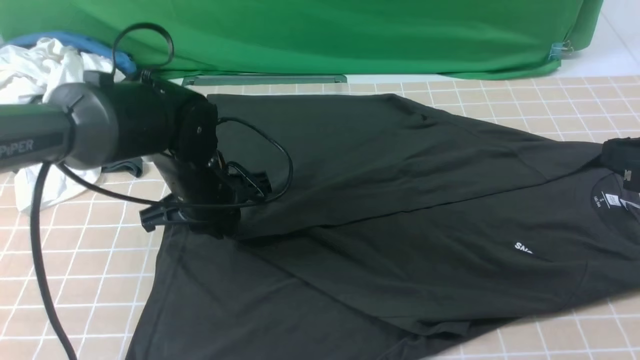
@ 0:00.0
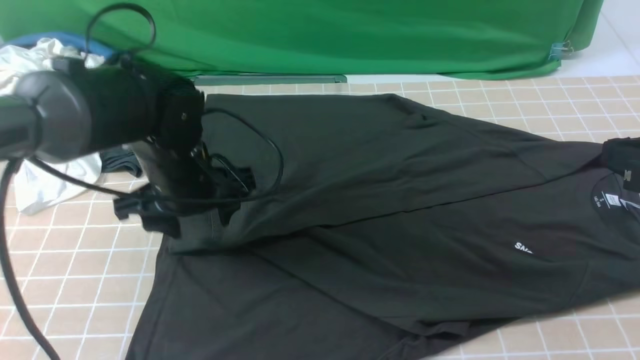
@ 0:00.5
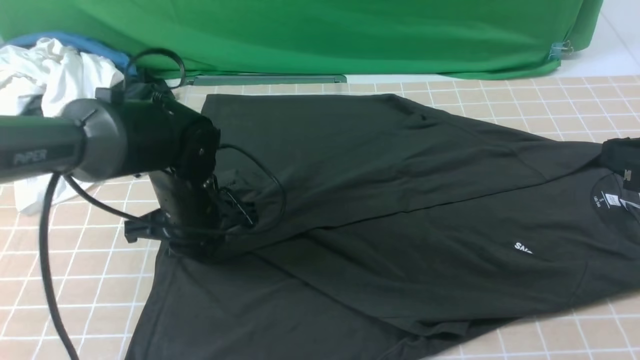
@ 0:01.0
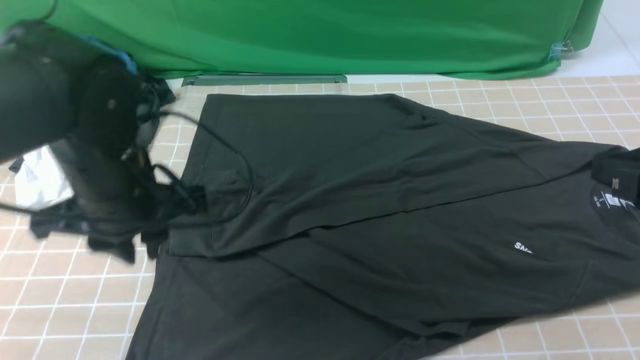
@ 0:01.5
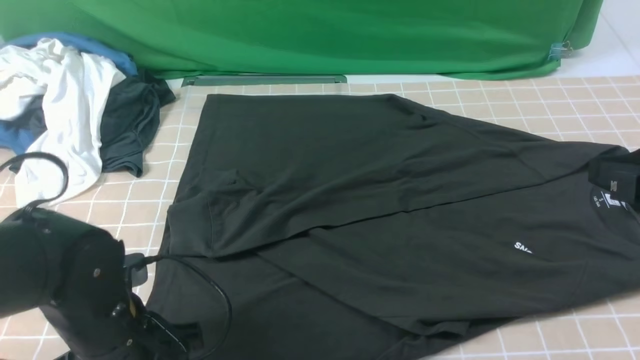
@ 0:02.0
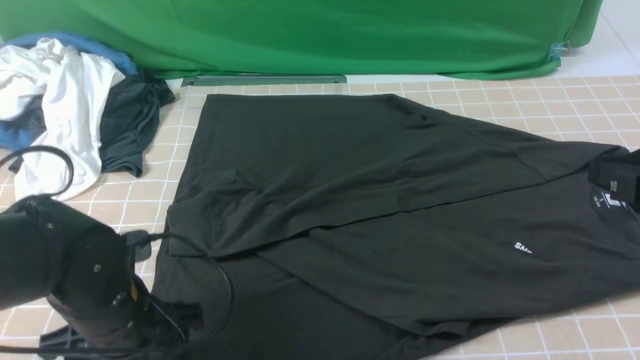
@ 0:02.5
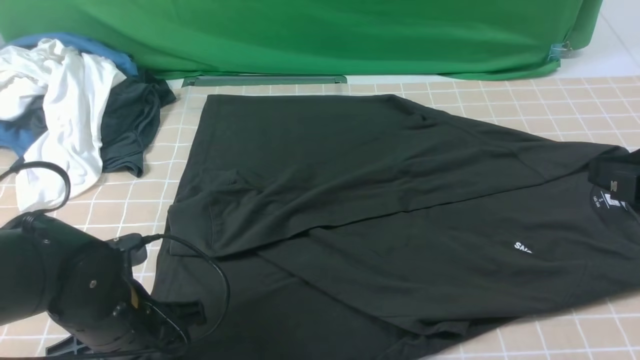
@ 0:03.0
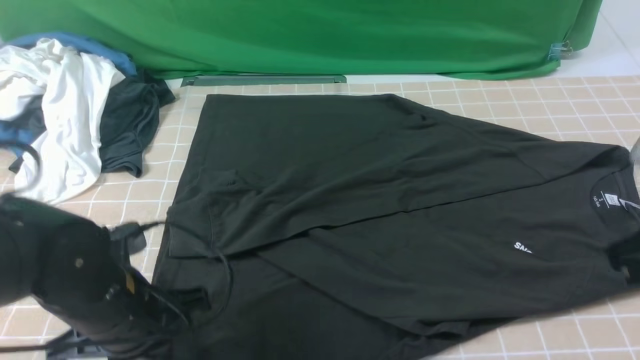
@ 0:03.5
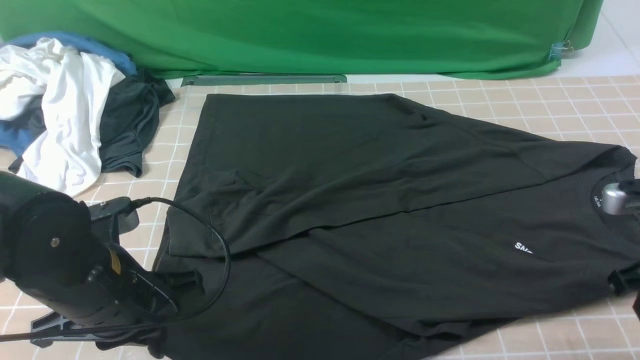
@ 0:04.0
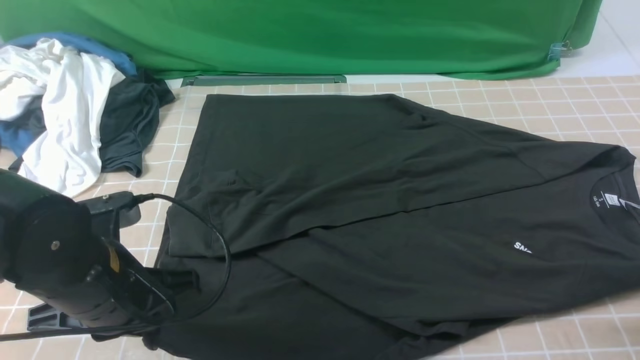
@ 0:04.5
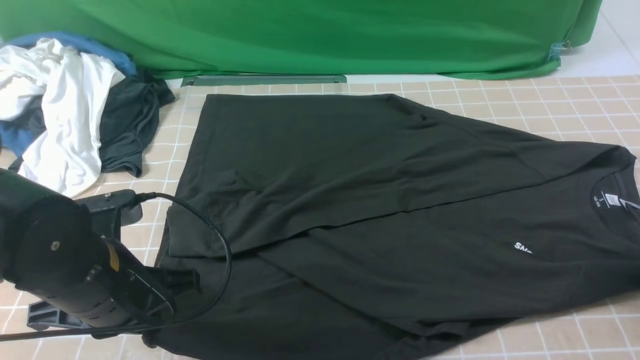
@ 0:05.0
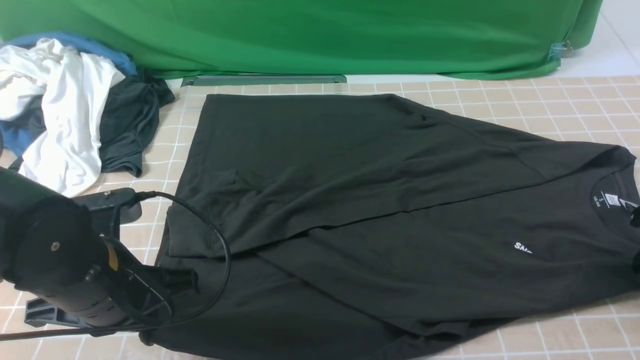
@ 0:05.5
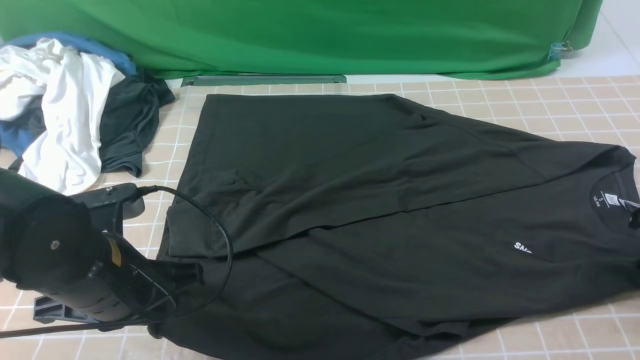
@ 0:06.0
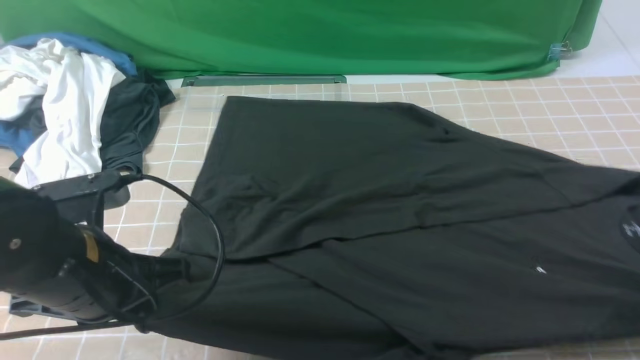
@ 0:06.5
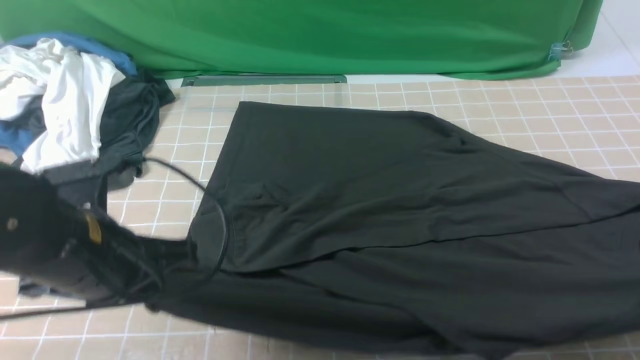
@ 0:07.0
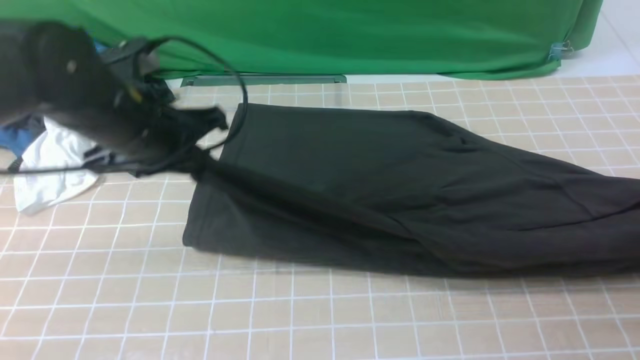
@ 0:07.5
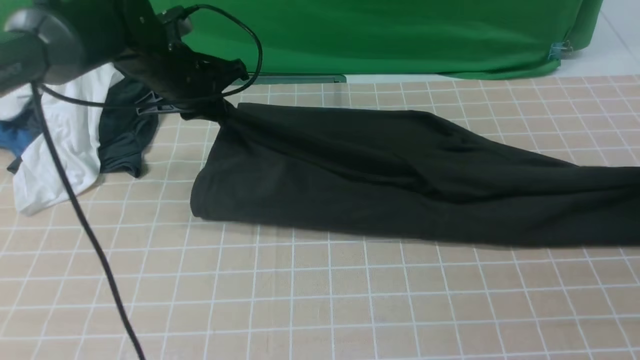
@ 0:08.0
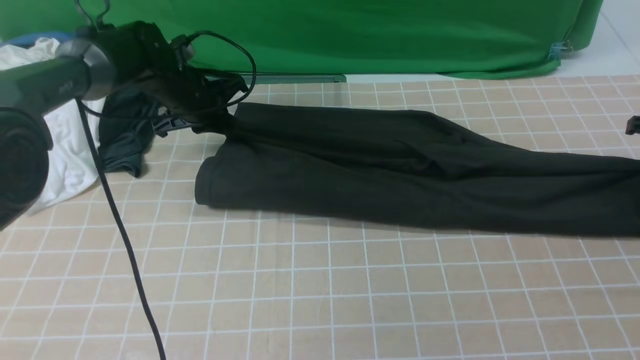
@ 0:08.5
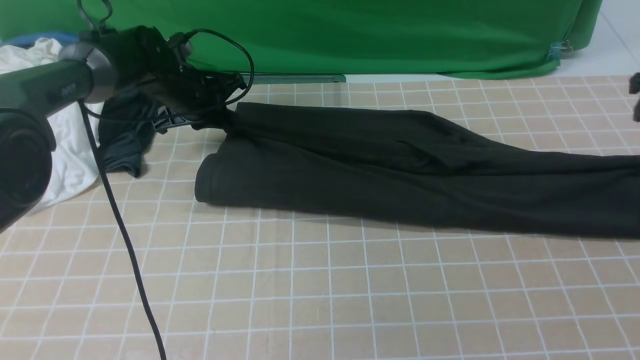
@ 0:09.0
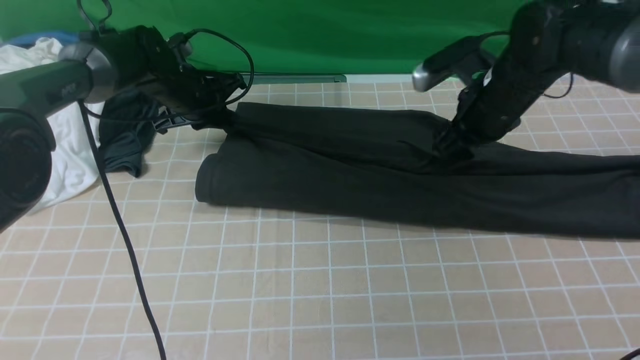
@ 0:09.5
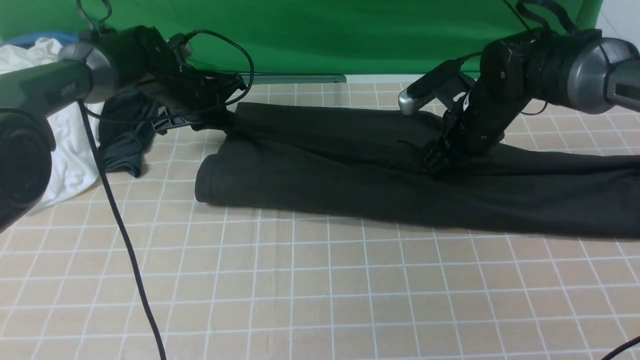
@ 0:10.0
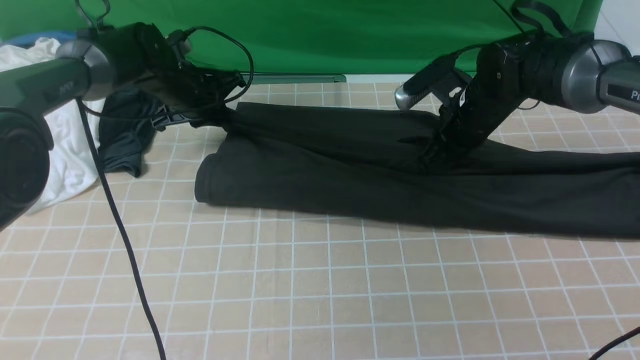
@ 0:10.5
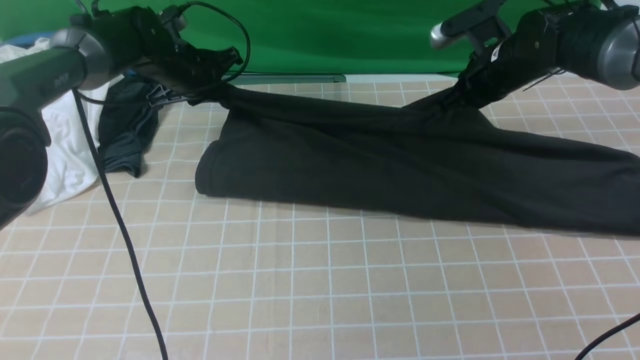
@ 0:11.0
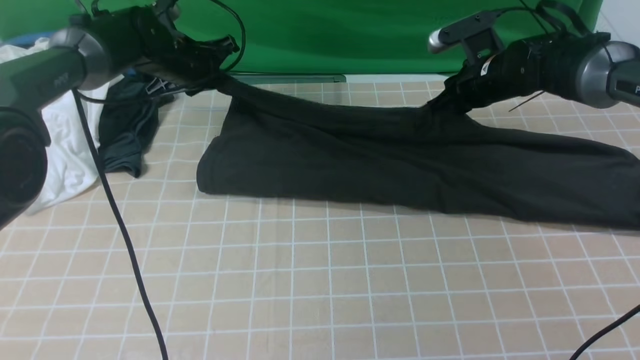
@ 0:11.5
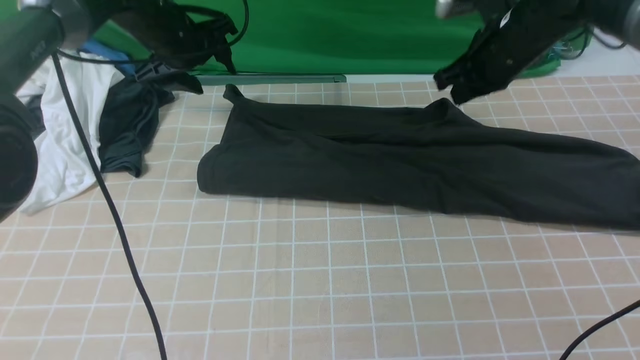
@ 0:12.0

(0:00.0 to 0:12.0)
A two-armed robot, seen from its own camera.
Step, 0:00.5 - 0:06.0: use both arms simultaneously to clamp the lower edge of the clothing fabric.
Step, 0:06.5 - 0:11.5: use both arms to drag the lower edge of the fabric forward and fold it over the upper edge.
0:00.0 - 0:02.0: The left gripper travels backward by roughly 15 cm, and opens its fingers.
0:02.0 - 0:04.0: The left gripper closes its fingers, while the right gripper shifts some 10 cm downward and to the right, and closes.
0:04.0 - 0:06.0: The right gripper travels to the right and downward by approximately 10 cm, and opens and closes again.
0:06.0 - 0:08.0: The right gripper travels forward and upward by approximately 10 cm. The left gripper goes some 25 cm forward.
0:08.0 - 0:10.0: The left gripper goes approximately 10 cm downward and forward. Meanwhile the right gripper shifts roughly 25 cm to the left, and opens its fingers.
0:10.0 - 0:12.0: The left gripper goes about 10 cm upward, and opens its fingers, while the right gripper goes roughly 5 cm upward, and closes.

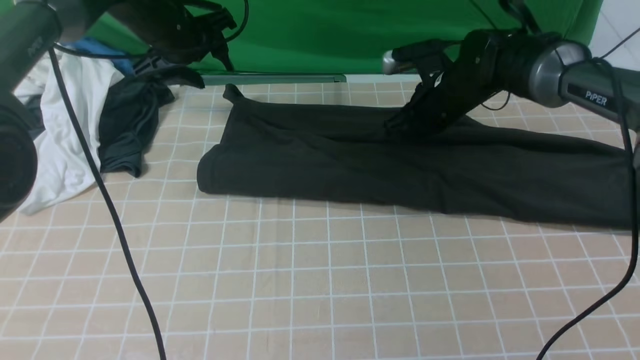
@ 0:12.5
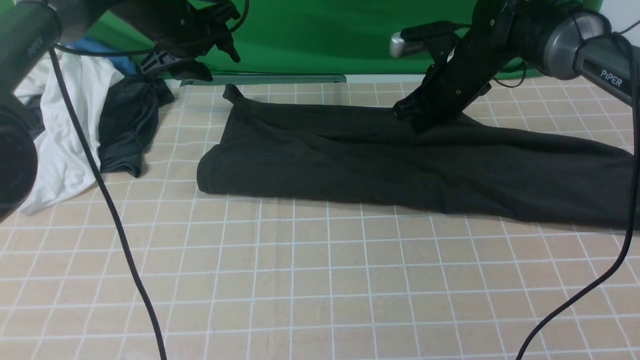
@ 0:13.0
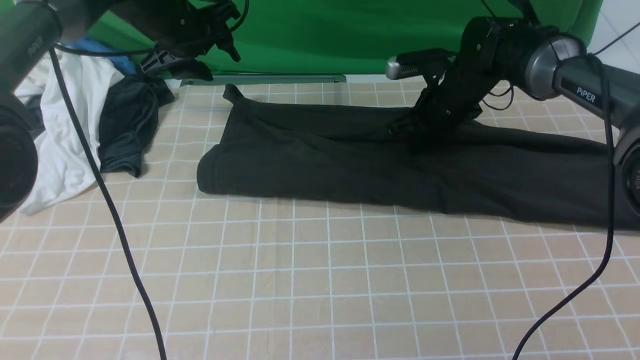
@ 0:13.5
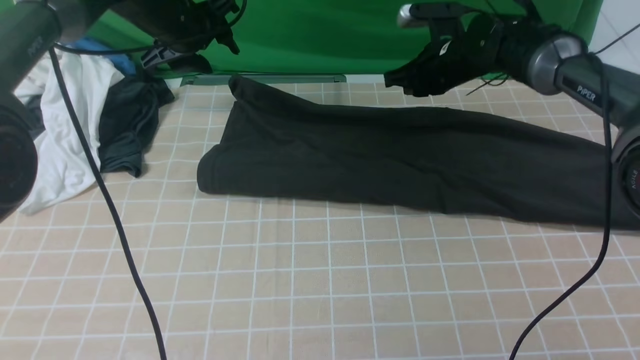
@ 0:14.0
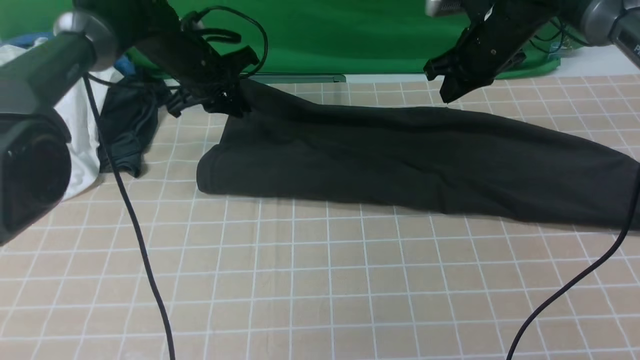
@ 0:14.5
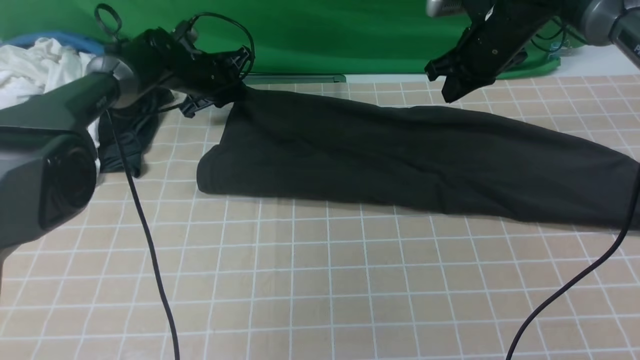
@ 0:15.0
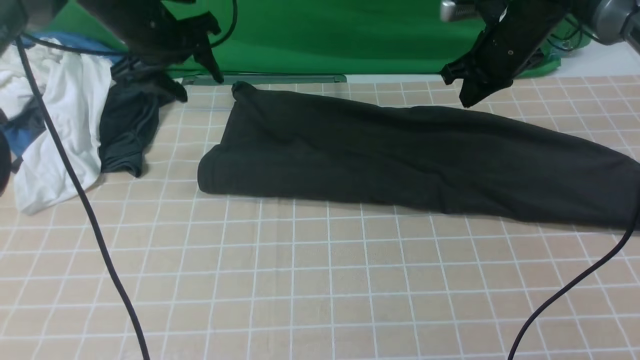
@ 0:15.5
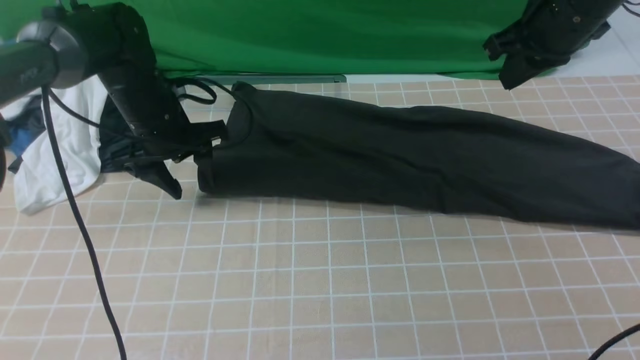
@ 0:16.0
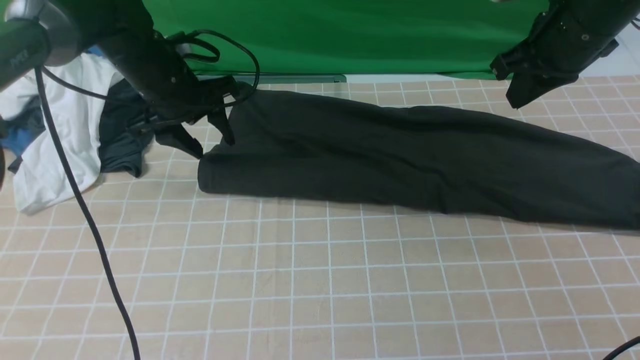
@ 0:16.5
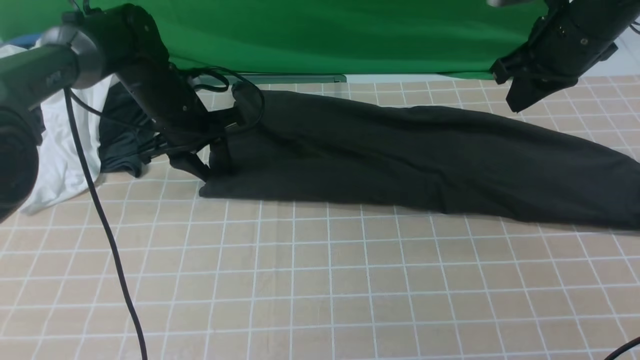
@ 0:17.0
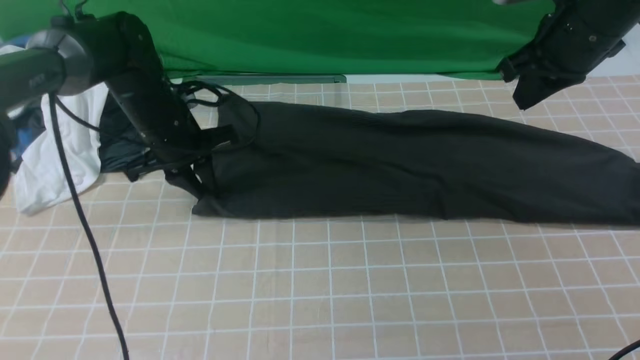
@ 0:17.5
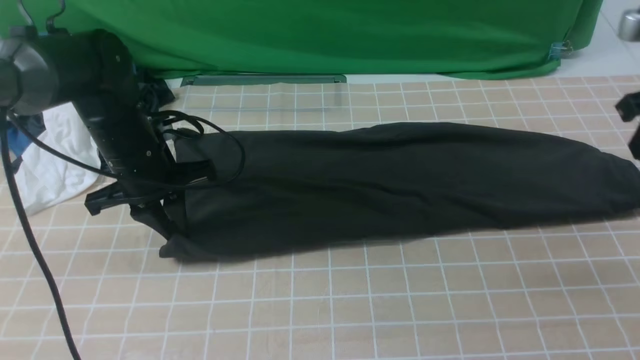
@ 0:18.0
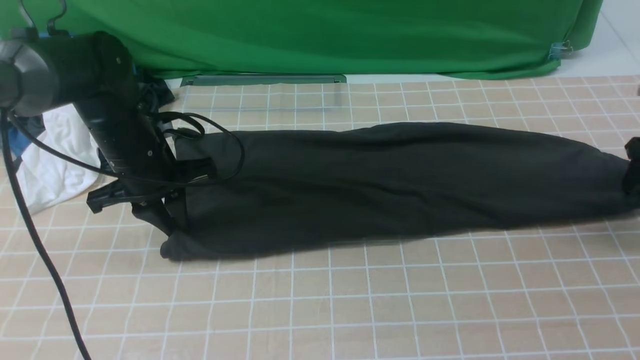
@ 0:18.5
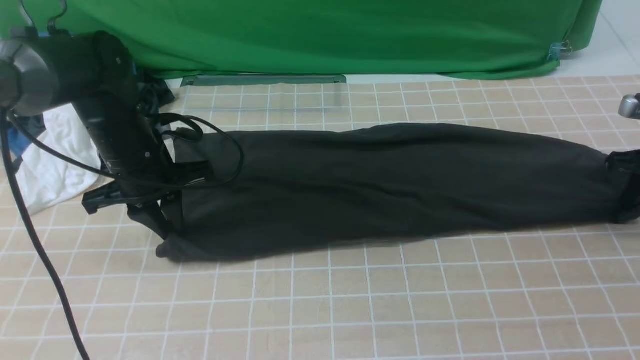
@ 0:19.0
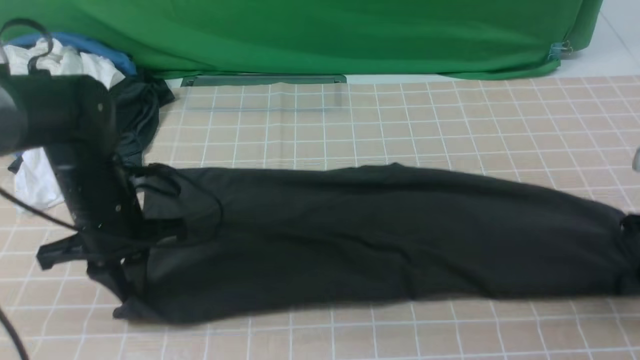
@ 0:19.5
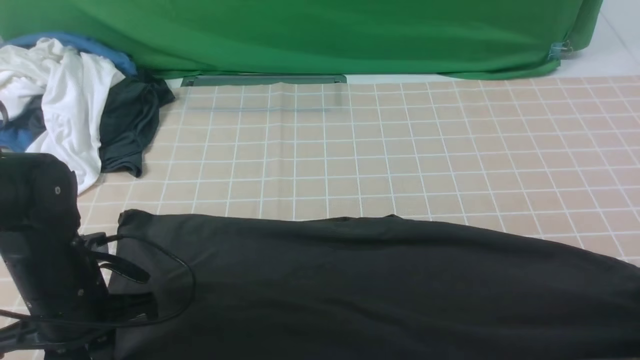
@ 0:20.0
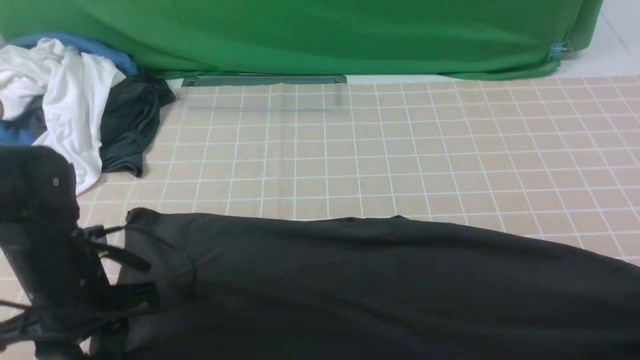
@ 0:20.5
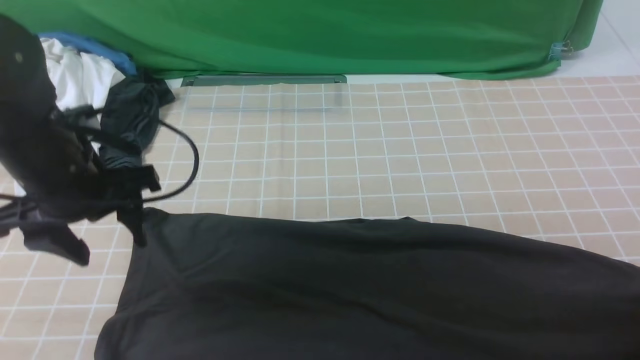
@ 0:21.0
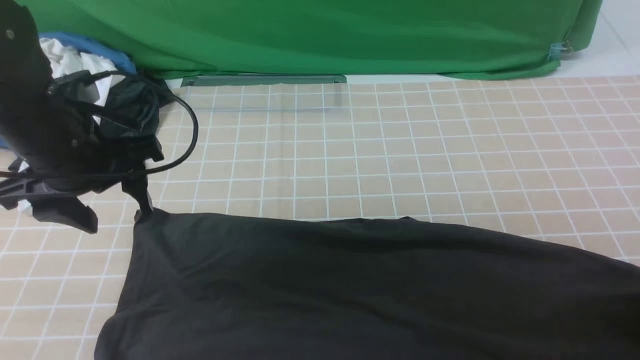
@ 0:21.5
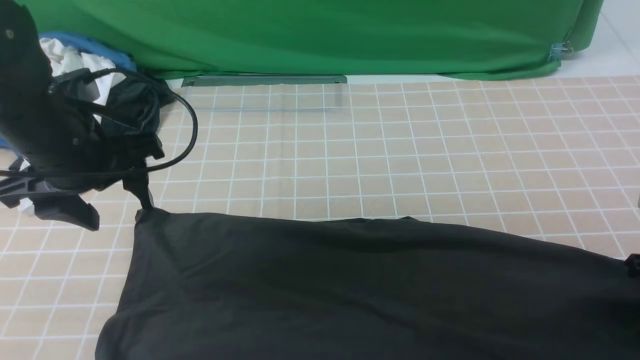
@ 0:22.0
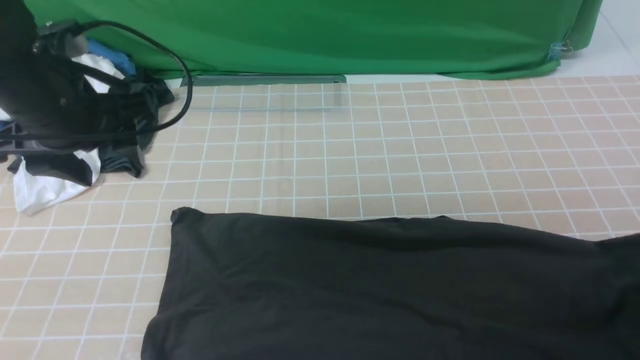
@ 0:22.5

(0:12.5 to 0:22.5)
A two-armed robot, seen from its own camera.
Step, 0:12.5 - 0:21.0: use the right arm to clamp the right edge of the fabric.
0:12.5 - 0:14.5: The right gripper heads upward, covering approximately 5 cm, while the left gripper goes roughly 5 cm downward, and closes up.
0:14.5 - 0:16.5: The right gripper shifts approximately 10 cm backward and upward. Meanwhile the left gripper travels backward by roughly 5 cm, and opens up.
0:16.5 - 0:18.5: The left gripper is displaced backward by some 10 cm, and closes; the right gripper travels to the right and downward by about 20 cm, and opens up.
0:18.5 - 0:20.5: The two grippers go some 15 cm backward. The left gripper opens up, while the right gripper closes its fingers.
0:20.5 - 0:22.5: The left gripper shifts roughly 15 cm upward and forward, while the right gripper is displaced forward and upward by some 10 cm, and opens, then closes once more.
